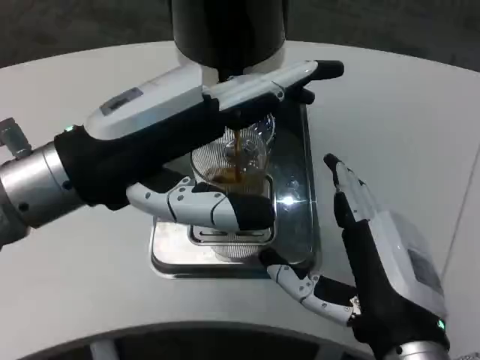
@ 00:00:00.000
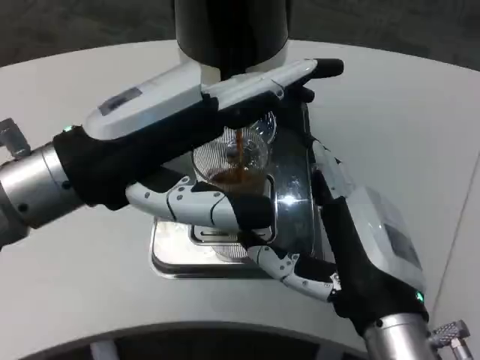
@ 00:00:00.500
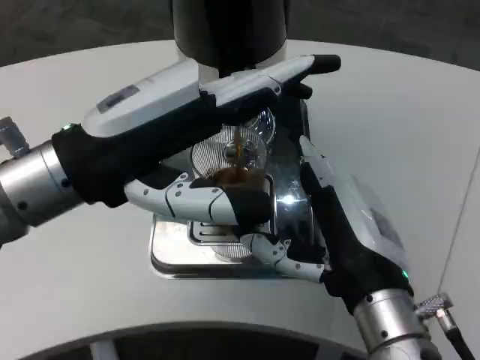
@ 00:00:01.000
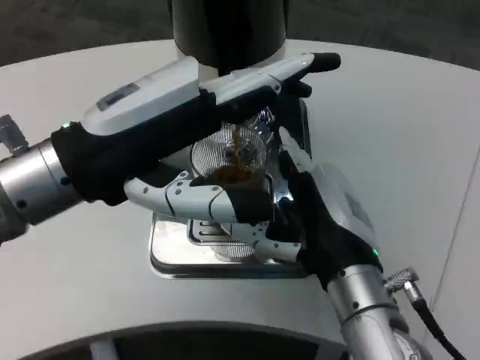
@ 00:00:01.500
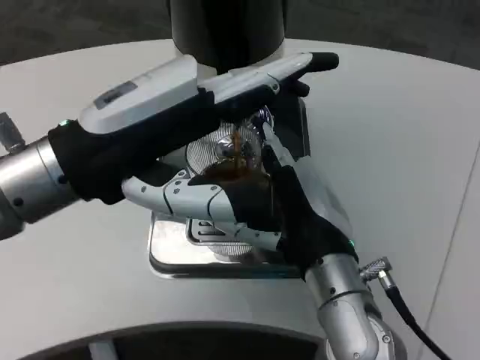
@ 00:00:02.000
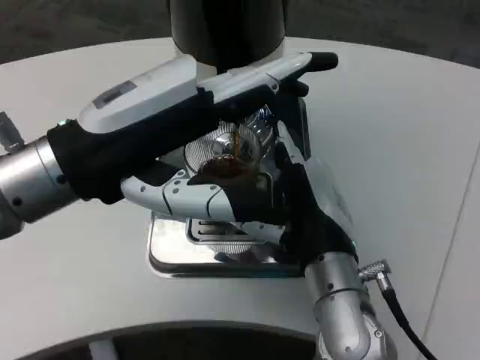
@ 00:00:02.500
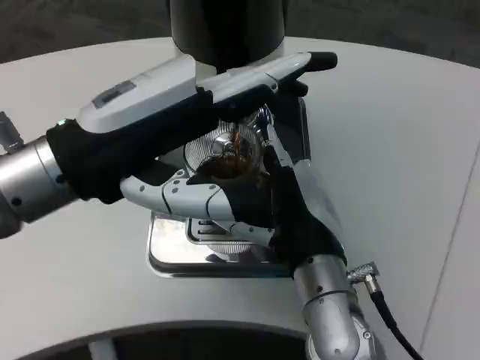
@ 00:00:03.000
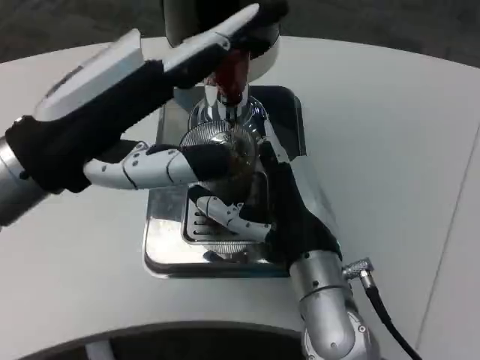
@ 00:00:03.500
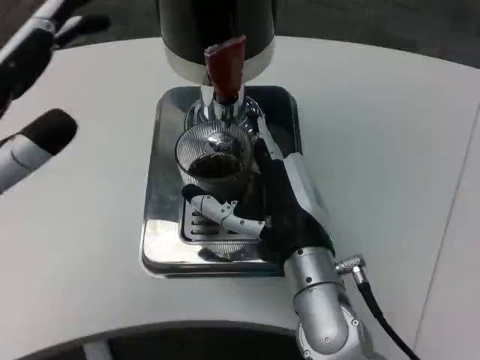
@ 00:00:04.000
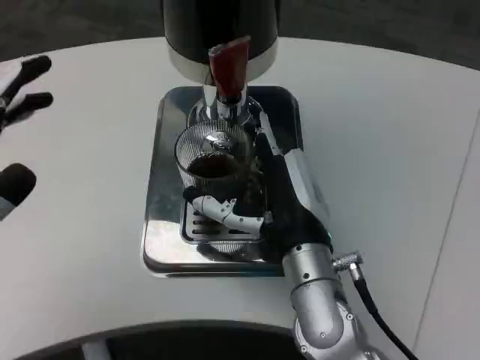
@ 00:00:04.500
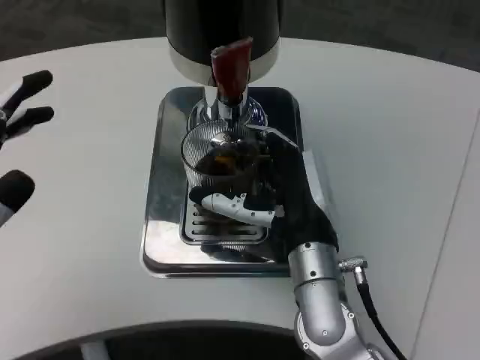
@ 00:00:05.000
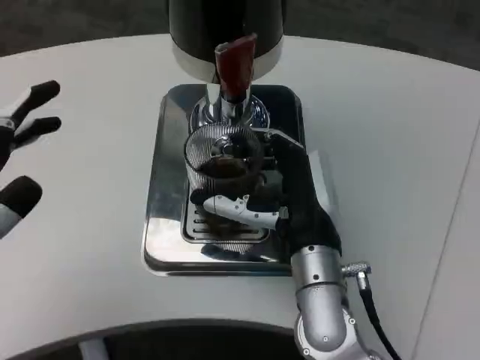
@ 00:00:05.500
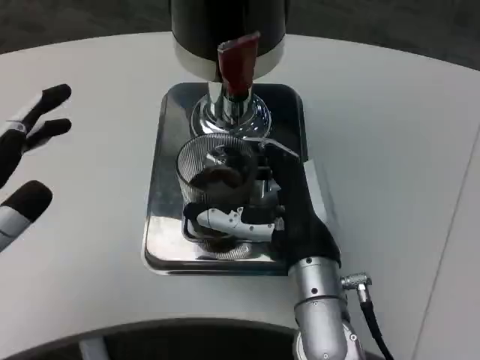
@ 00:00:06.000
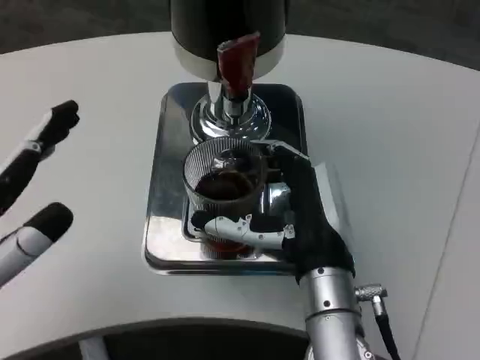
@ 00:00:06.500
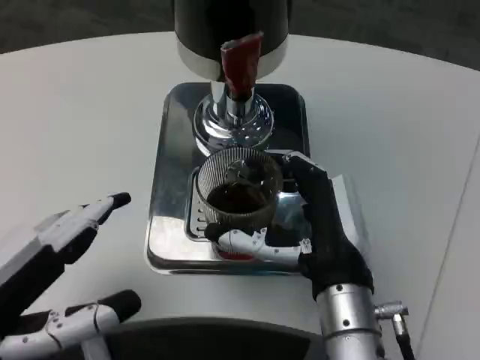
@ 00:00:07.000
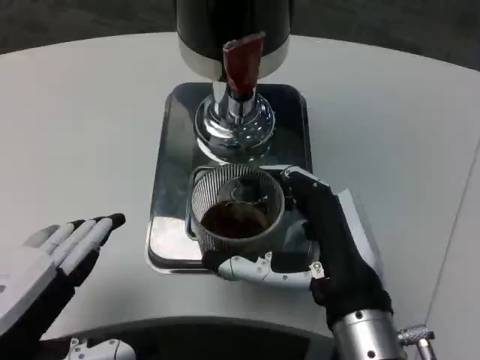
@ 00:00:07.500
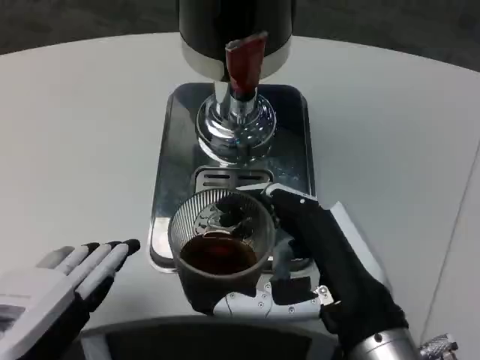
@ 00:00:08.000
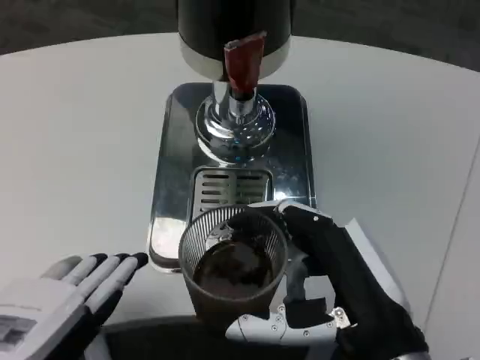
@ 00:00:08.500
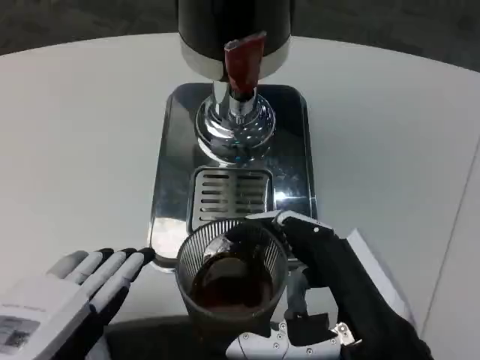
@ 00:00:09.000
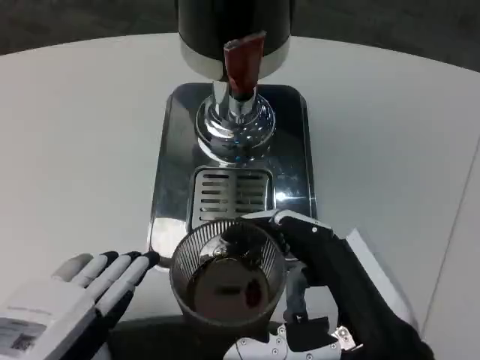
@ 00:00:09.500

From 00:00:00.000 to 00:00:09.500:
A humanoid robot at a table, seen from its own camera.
Task of the whole recording: Grasp the cup under the faucet to collect the drink, then remove the cup.
From 00:00:00.000 to 00:00:02.000: The right hand goes approximately 10 cm forward.
From 00:00:02.000 to 00:00:04.000: The left hand travels to the left and backward by about 10 cm.
From 00:00:04.000 to 00:00:05.500: The left hand shifts by roughly 5 cm.
From 00:00:05.500 to 00:00:07.500: The right hand travels backward by about 10 cm, while the left hand goes roughly 5 cm to the right.
From 00:00:07.500 to 00:00:09.500: The right hand shifts approximately 5 cm backward.

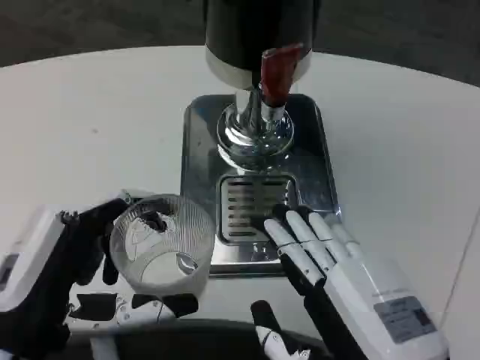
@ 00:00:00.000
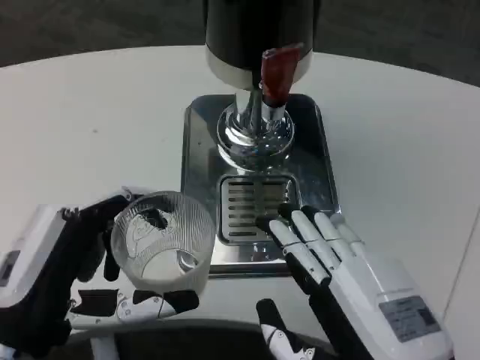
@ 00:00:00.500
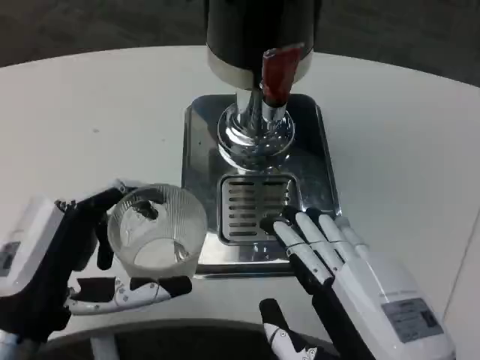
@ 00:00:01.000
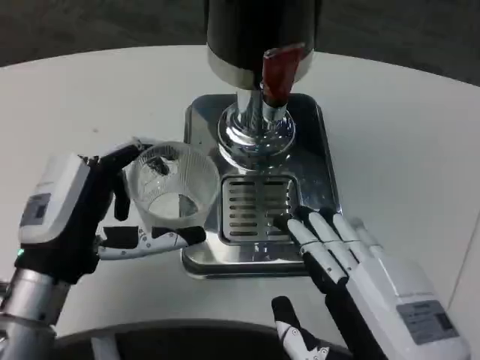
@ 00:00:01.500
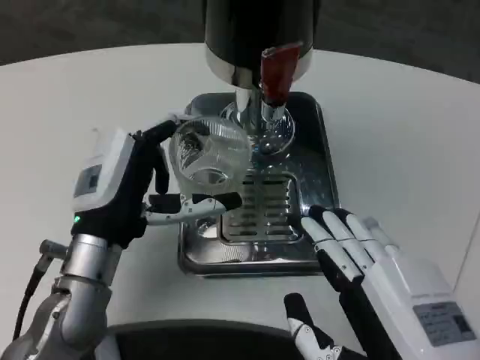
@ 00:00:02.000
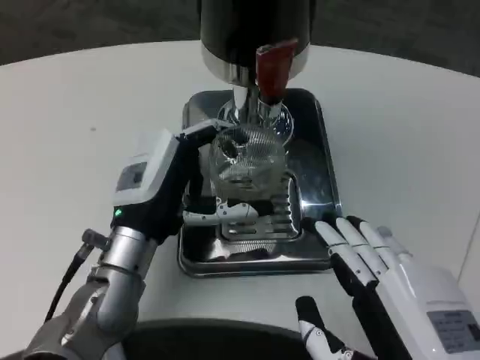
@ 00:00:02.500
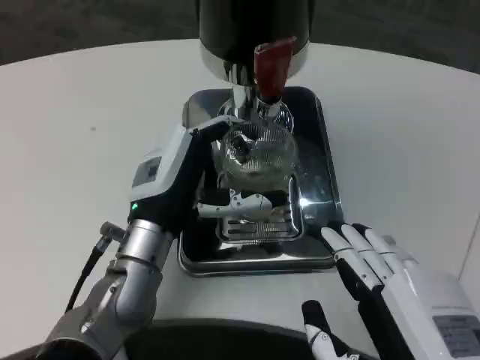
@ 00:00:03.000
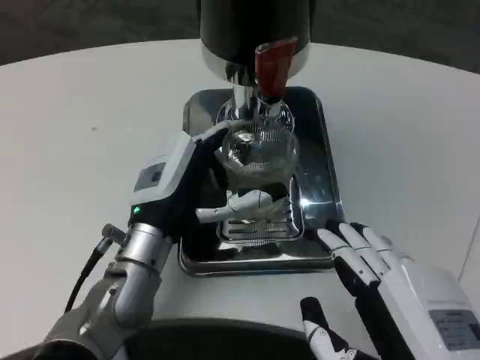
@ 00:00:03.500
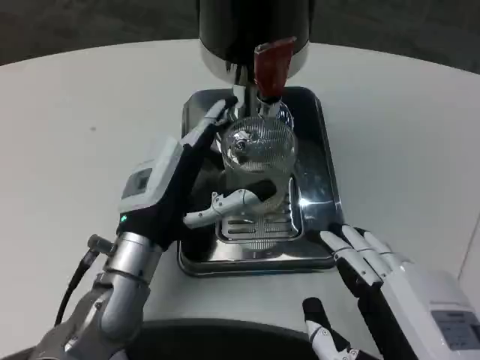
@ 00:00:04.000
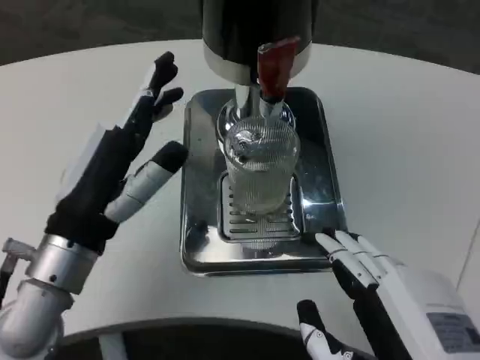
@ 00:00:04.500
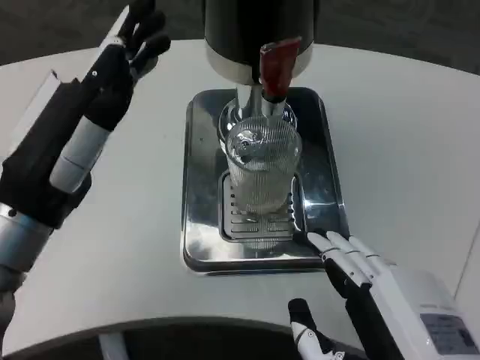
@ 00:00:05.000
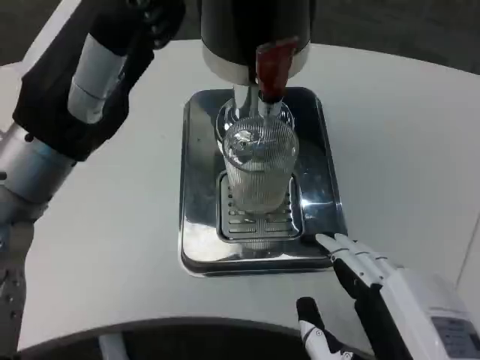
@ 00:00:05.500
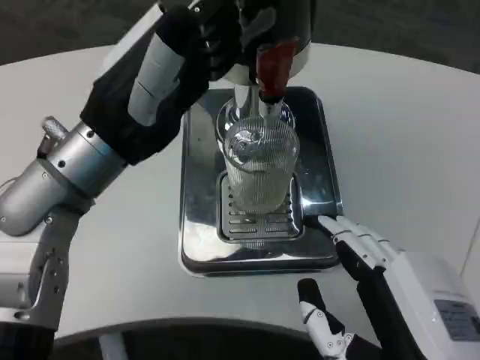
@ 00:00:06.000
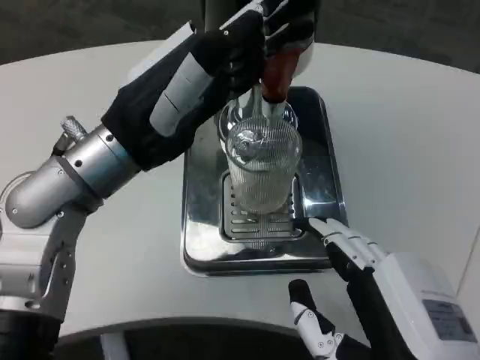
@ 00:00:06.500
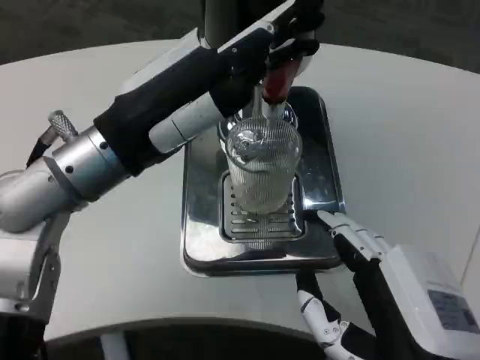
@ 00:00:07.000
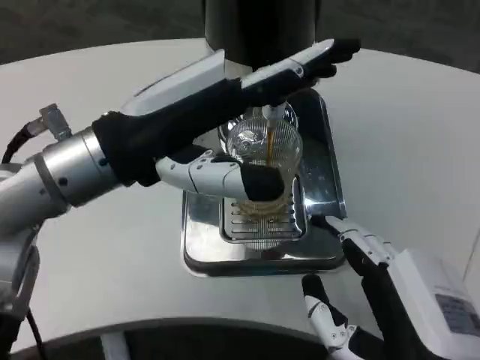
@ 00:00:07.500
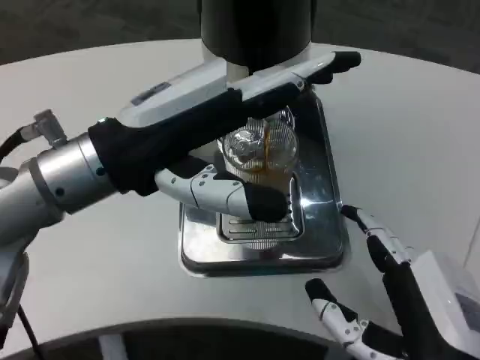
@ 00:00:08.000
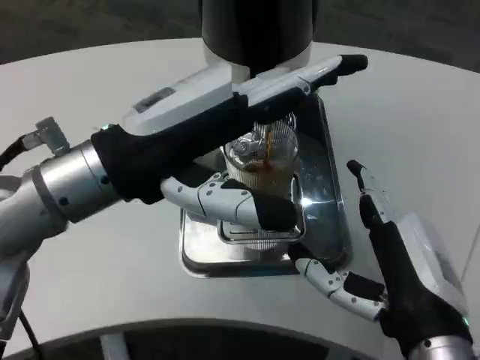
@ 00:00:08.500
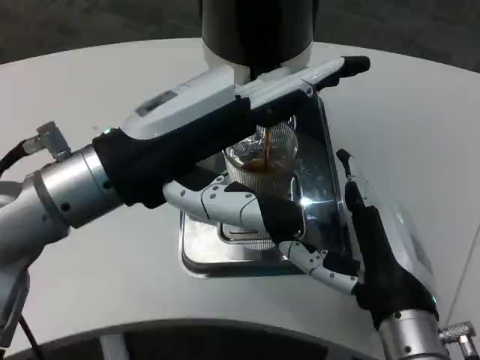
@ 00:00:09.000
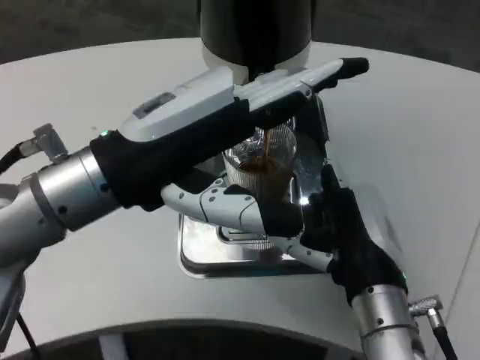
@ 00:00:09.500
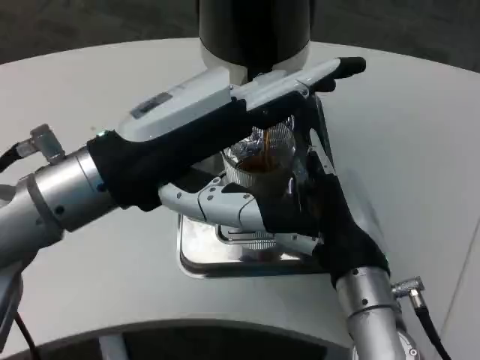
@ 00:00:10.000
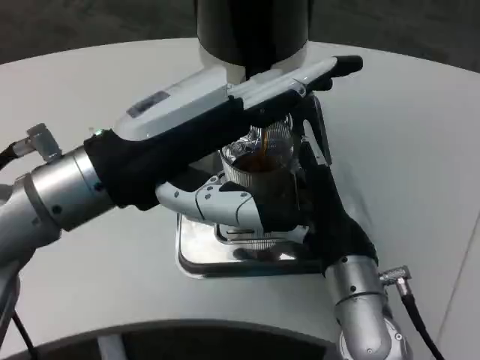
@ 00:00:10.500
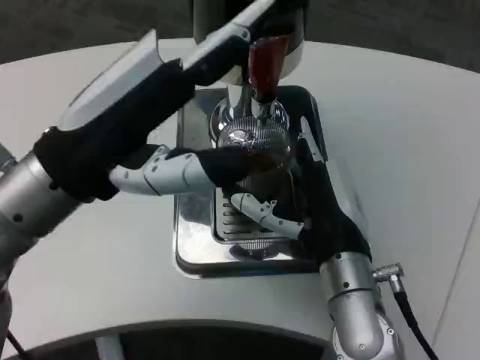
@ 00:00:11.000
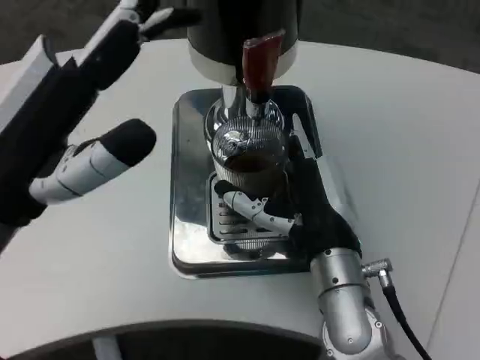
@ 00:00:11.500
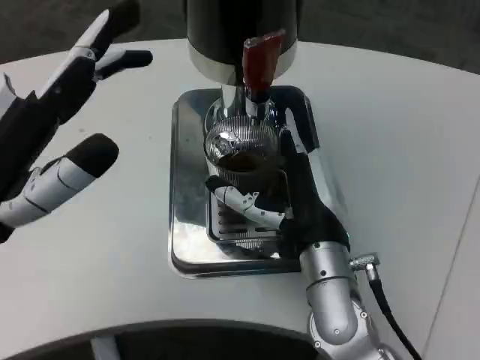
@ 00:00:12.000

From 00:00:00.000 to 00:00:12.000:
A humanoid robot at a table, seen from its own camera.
Task of the whole recording: Grasp the cup under the faucet to collect the drink, then remove the cup.
From 00:00:00.000 to 00:00:02.000: The left hand is displaced forward by about 10 cm.
From 00:00:04.000 to 00:00:06.000: The left hand heads upward, covering some 15 cm.
From 00:00:08.000 to 00:00:10.000: The right hand goes approximately 15 cm forward.
From 00:00:10.000 to 00:00:12.000: The left hand moves to the left, approximately 5 cm.

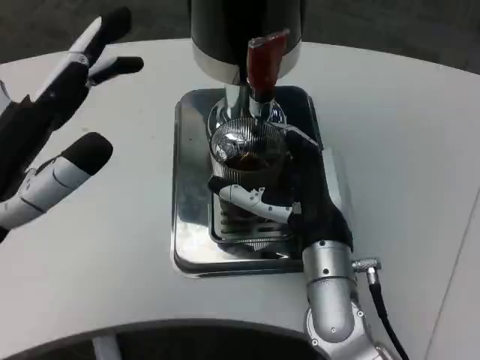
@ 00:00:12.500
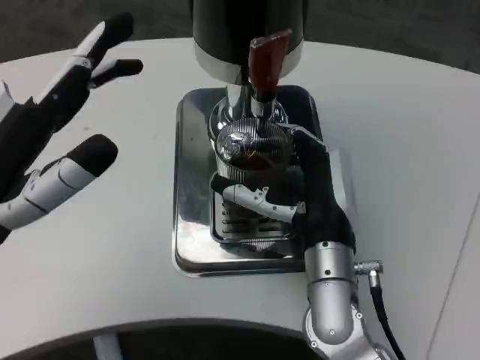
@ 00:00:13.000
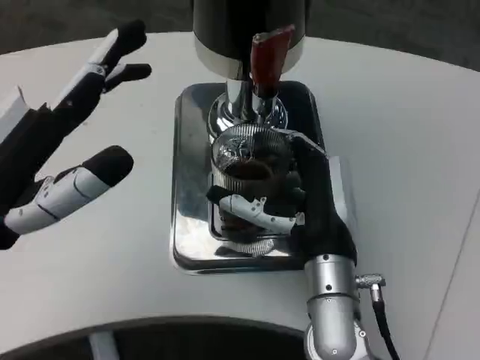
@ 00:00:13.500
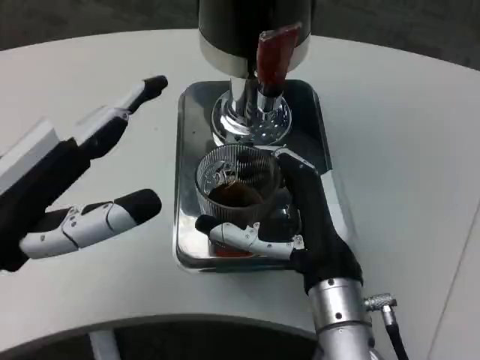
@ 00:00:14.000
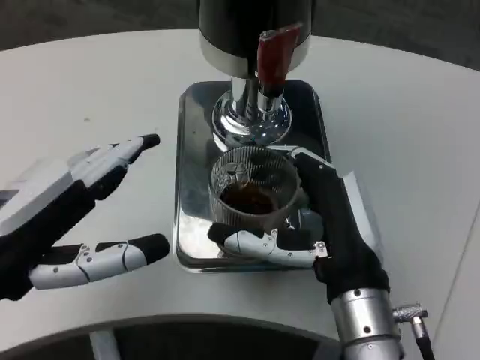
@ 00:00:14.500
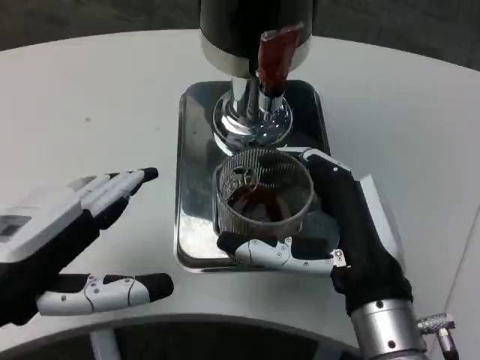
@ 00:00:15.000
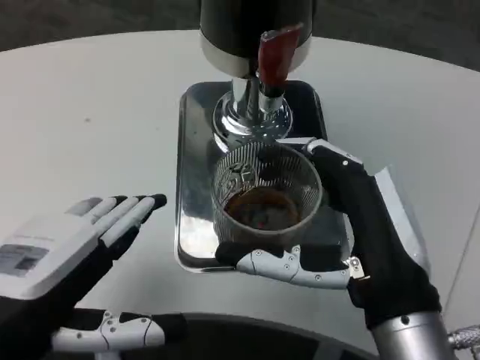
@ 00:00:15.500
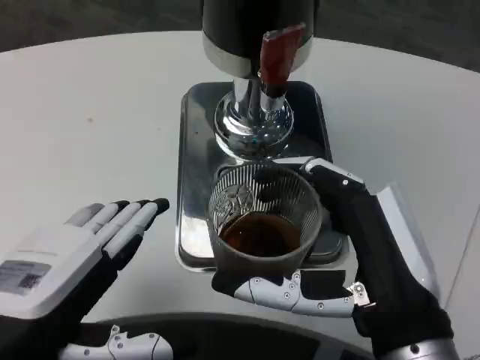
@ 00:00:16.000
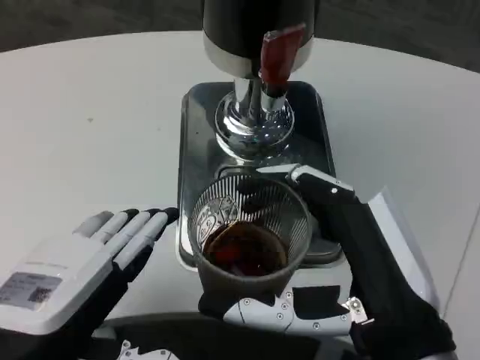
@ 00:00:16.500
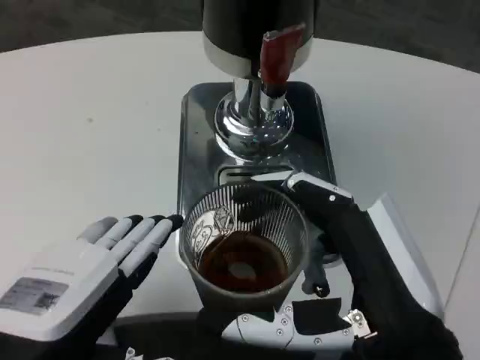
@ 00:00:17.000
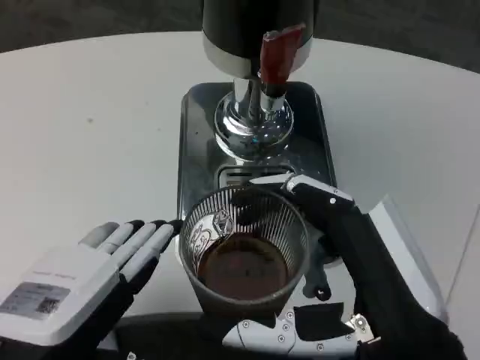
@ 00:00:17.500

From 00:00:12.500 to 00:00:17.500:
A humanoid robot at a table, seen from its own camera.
Task of the whole recording: Grasp the cup under the faucet to collect the drink, then remove the cup.
From 00:00:12.500 to 00:00:15.000: The right hand heads backward, covering roughly 10 cm.
From 00:00:15.000 to 00:00:17.500: The right hand is displaced backward by roughly 10 cm, while the left hand changes place by roughly 5 cm.
